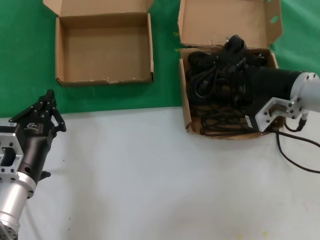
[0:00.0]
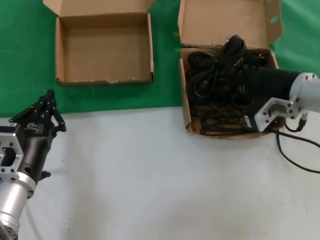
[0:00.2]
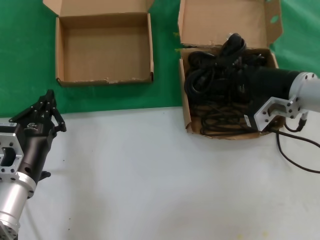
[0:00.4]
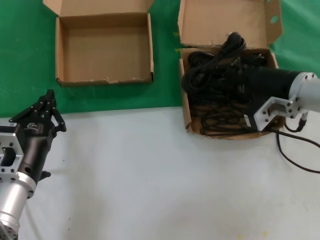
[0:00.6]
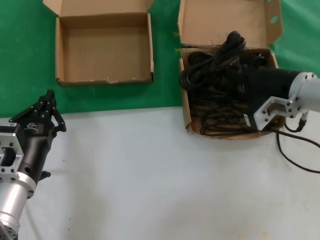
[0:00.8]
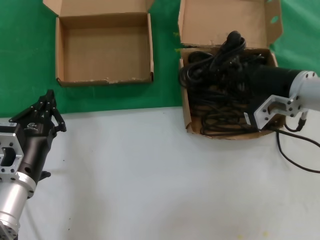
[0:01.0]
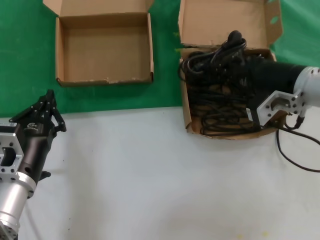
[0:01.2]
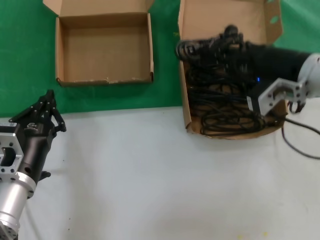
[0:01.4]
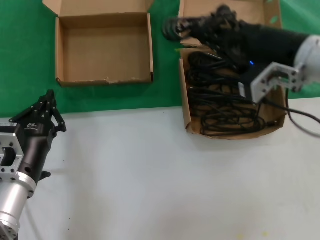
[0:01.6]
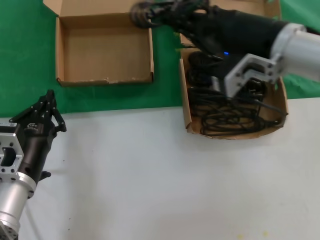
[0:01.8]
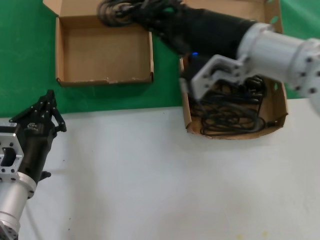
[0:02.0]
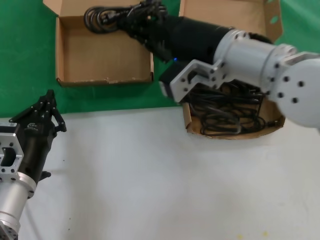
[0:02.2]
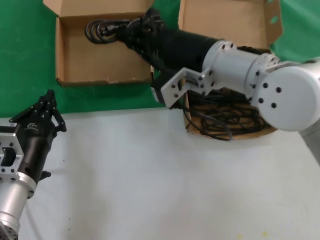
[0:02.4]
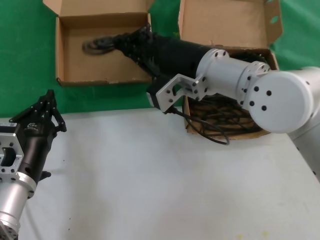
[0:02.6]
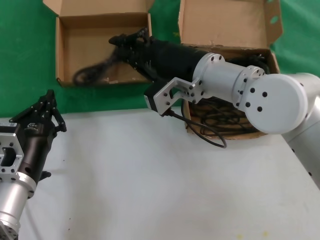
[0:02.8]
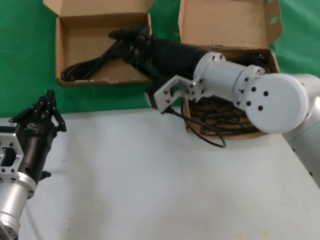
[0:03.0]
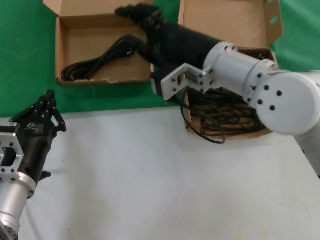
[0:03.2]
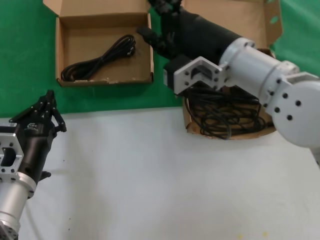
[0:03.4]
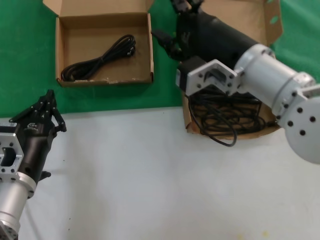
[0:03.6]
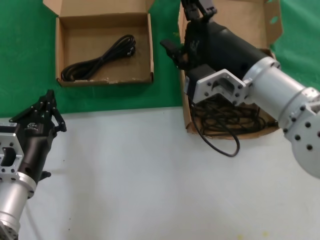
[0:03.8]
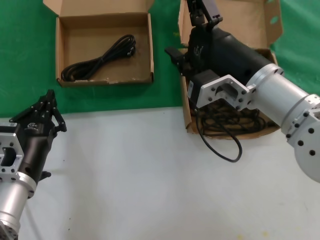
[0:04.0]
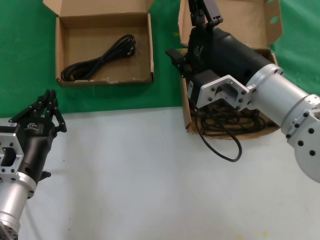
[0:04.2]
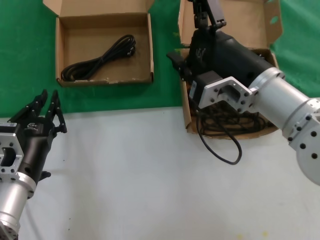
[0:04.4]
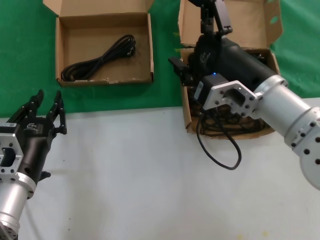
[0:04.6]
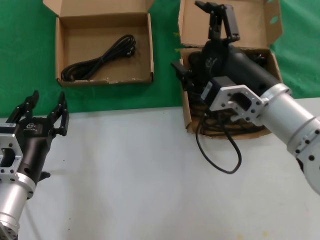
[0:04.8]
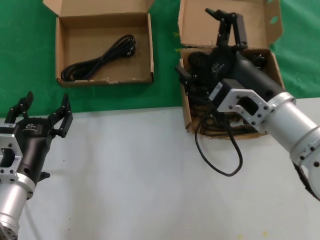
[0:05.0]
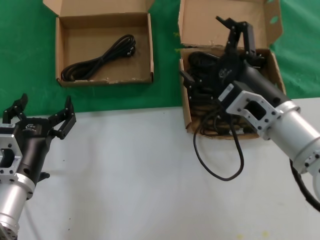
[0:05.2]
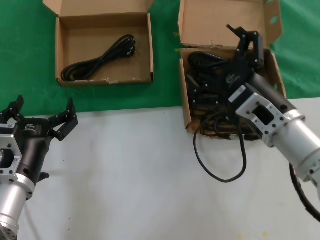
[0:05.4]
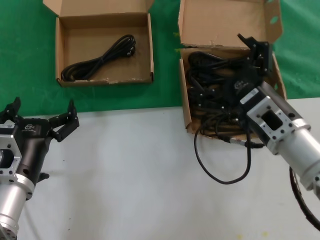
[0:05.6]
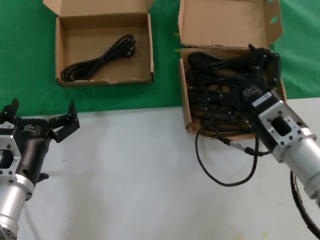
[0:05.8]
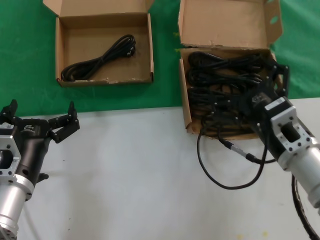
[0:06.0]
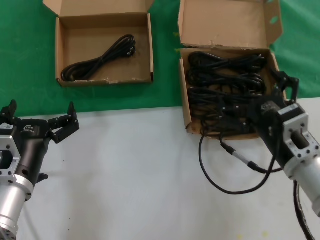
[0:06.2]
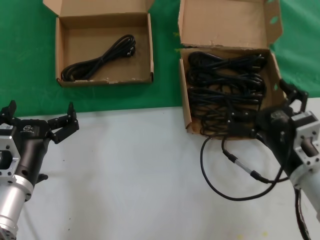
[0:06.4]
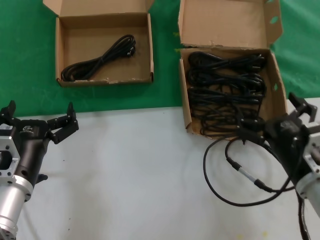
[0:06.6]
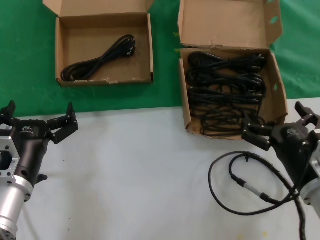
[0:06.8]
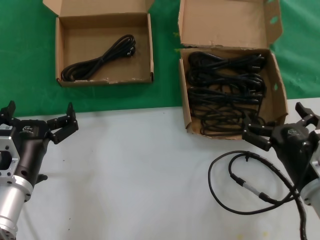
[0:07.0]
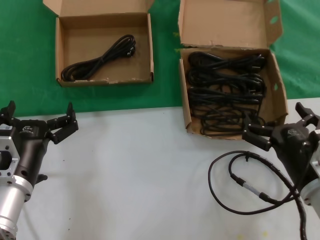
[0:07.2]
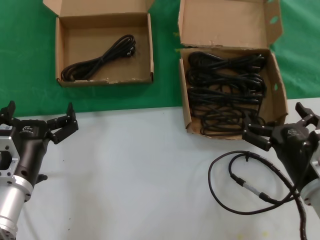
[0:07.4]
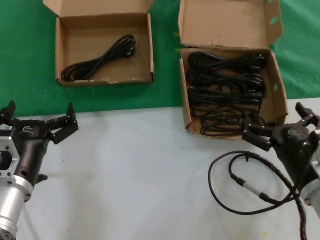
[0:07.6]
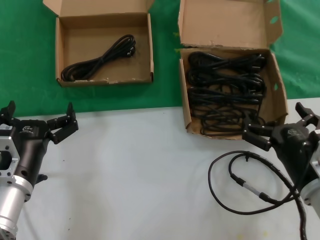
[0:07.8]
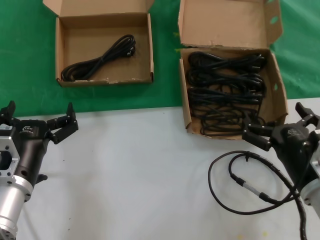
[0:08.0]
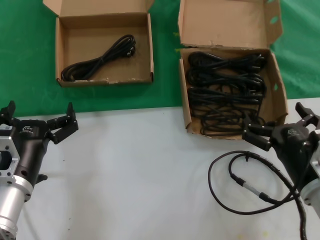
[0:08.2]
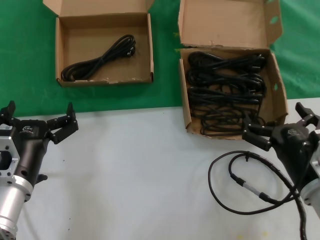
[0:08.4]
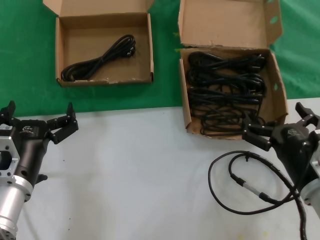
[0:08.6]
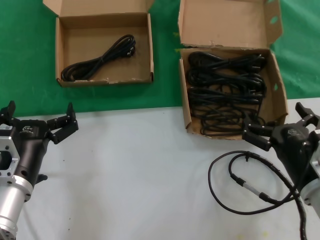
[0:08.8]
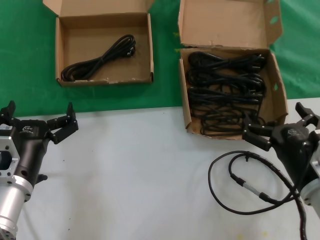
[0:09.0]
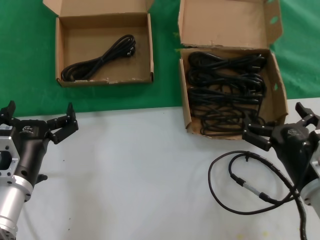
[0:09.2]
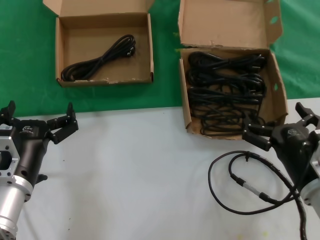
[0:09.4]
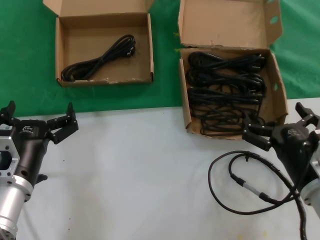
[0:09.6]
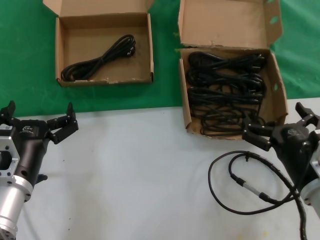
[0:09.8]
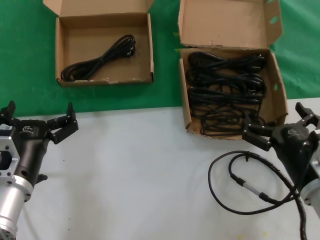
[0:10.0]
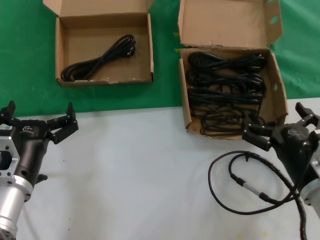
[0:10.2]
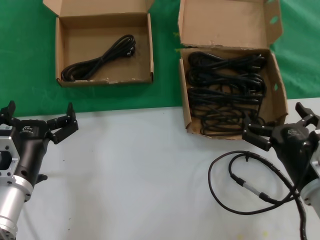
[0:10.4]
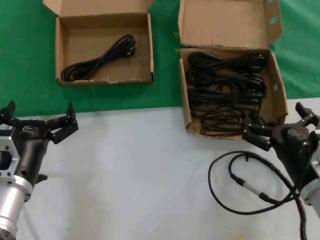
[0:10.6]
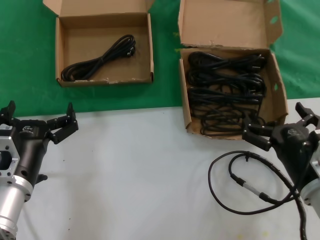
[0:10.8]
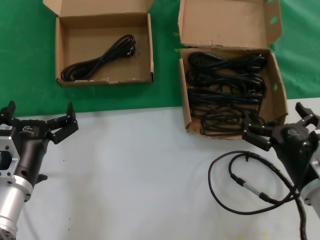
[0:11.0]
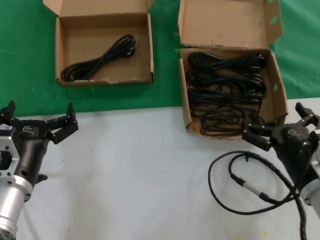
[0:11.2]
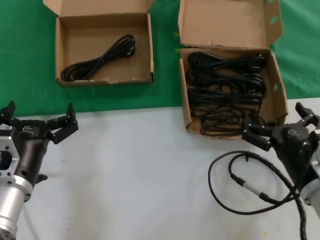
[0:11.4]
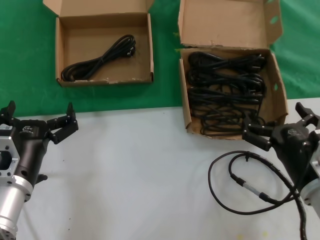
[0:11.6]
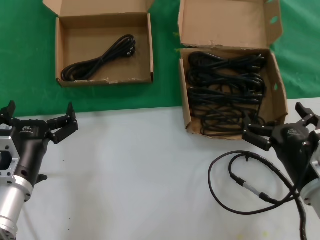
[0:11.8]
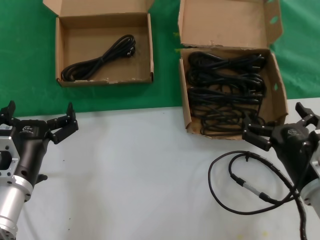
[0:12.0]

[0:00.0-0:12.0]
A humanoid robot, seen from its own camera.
Task of the whole recording: take the parts from the box containing them and put them into an empty box.
Step, 0.8 to 2.8 s: Place the data cable in the another box.
0.0 to 1.6 s: The right hand heads upward, covering some 5 cm.
1.6 to 3.0 s: The right hand is displaced to the left by roughly 15 cm.
3.0 to 4.4 s: The right hand shifts some 10 cm backward and to the right.
4.4 to 6.0 s: The right hand goes approximately 15 cm downward and to the right.
6.0 to 7.6 s: The right hand goes some 5 cm downward.
7.6 to 12.0 s: Neither hand changes place.

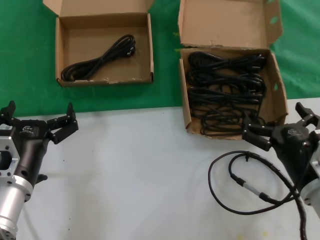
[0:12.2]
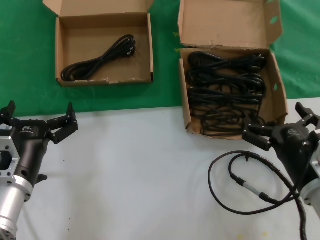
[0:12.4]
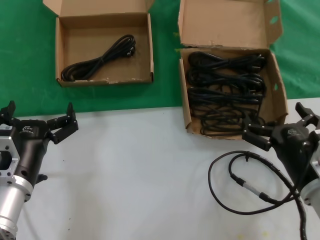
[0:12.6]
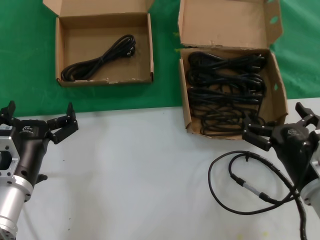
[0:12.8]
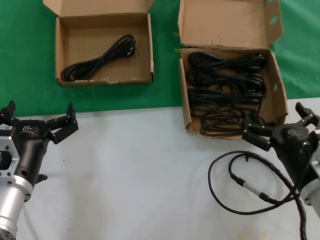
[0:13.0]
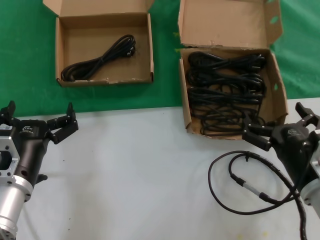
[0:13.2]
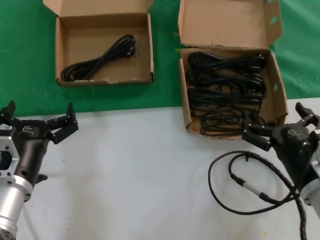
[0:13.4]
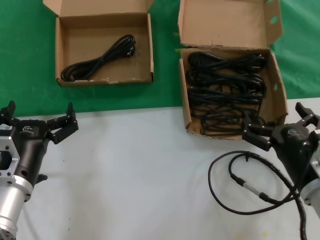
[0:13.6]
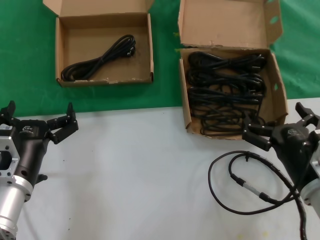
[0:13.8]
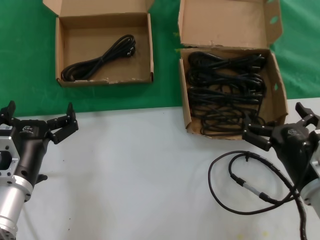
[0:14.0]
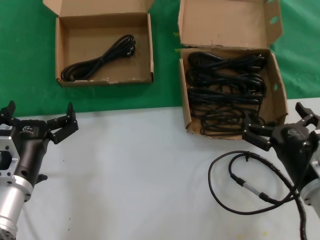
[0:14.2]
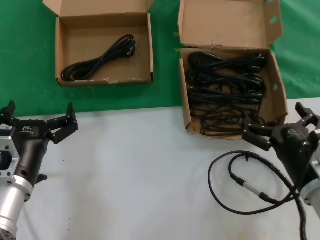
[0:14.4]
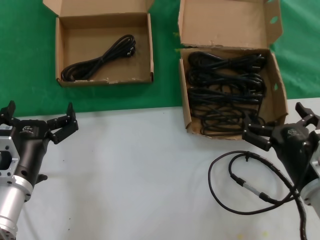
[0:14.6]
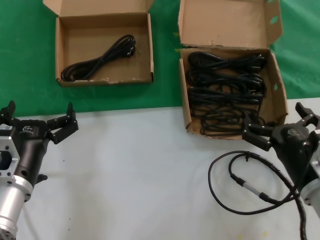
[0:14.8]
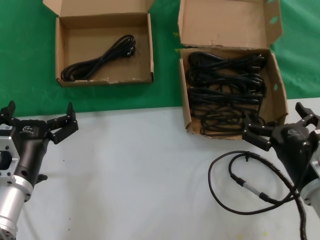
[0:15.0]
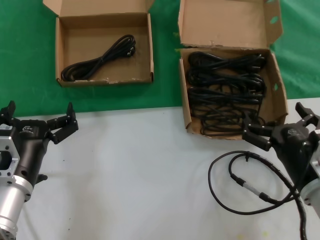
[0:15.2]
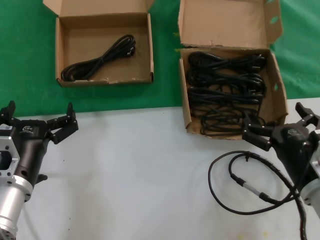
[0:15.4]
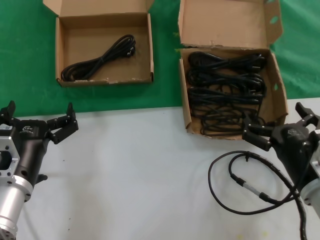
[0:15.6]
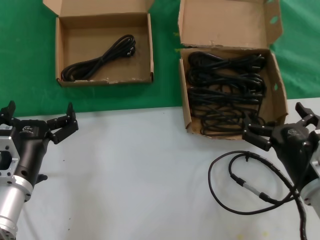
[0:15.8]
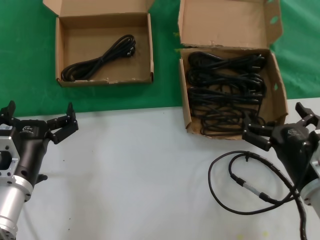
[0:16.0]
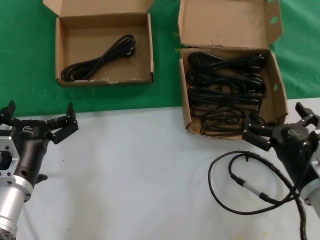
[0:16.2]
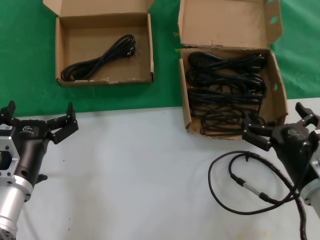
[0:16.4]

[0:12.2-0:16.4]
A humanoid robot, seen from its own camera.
Task of the whole recording: take the parts from the box containing them and put them into an empty box.
12.2 to 16.4 s: Neither hand changes place.

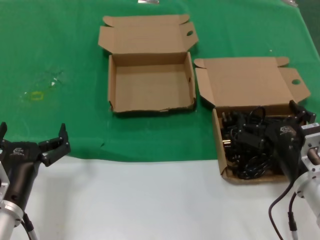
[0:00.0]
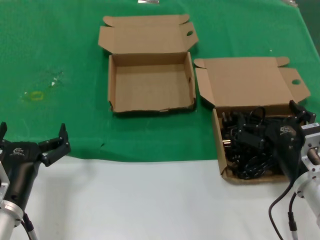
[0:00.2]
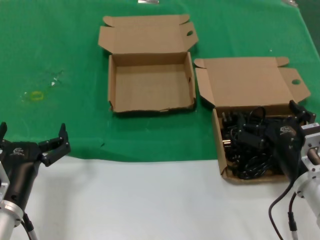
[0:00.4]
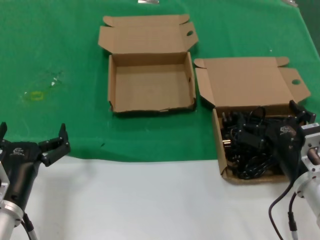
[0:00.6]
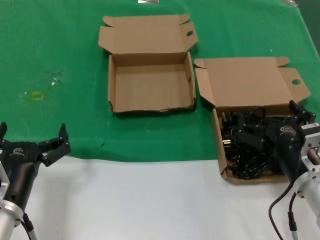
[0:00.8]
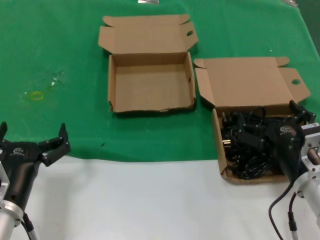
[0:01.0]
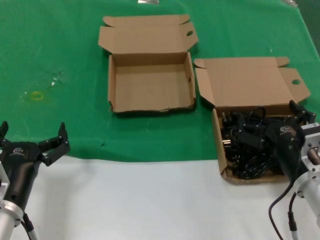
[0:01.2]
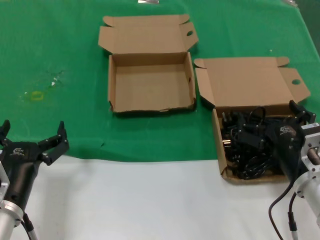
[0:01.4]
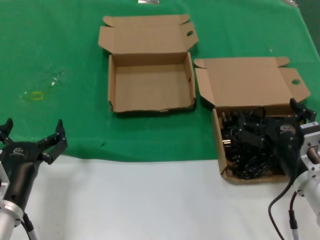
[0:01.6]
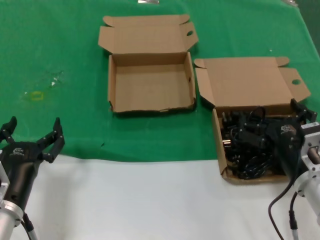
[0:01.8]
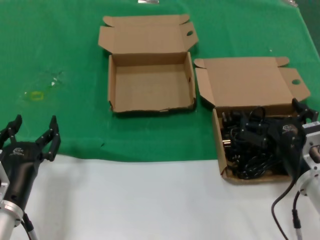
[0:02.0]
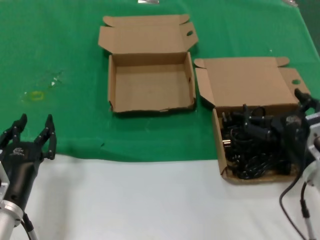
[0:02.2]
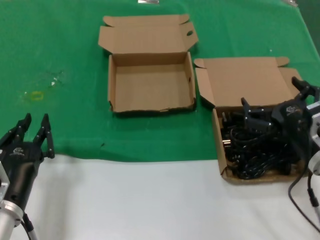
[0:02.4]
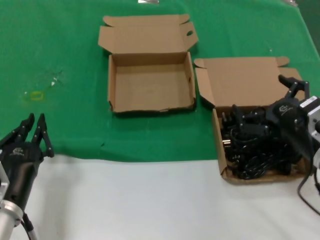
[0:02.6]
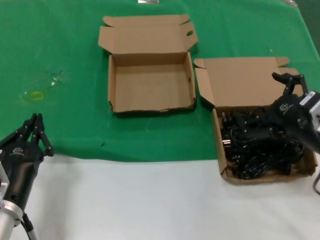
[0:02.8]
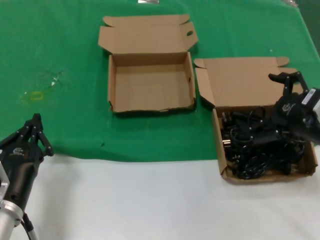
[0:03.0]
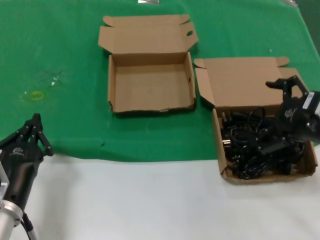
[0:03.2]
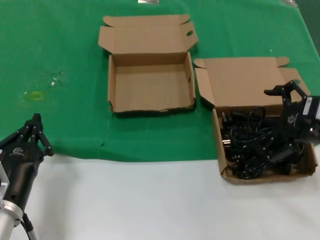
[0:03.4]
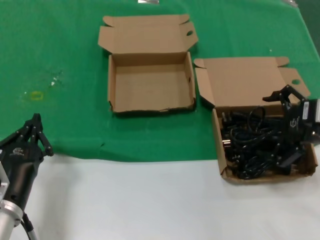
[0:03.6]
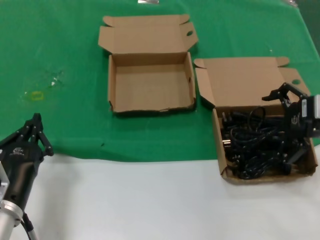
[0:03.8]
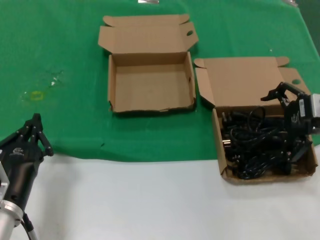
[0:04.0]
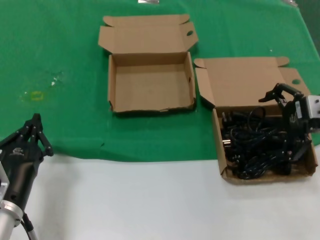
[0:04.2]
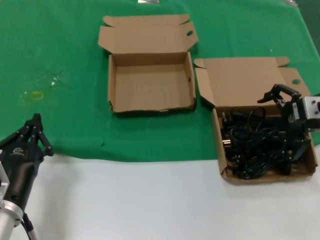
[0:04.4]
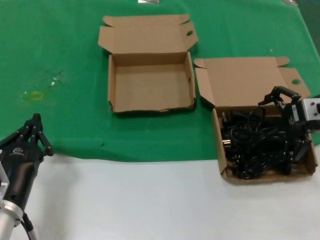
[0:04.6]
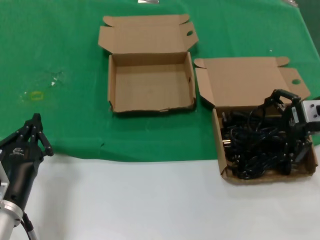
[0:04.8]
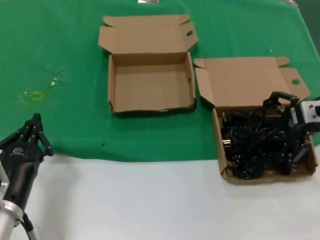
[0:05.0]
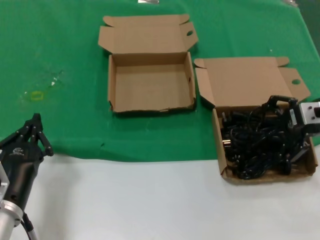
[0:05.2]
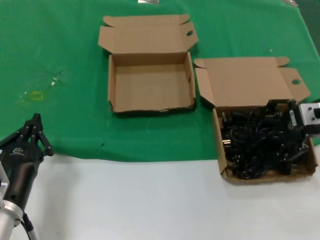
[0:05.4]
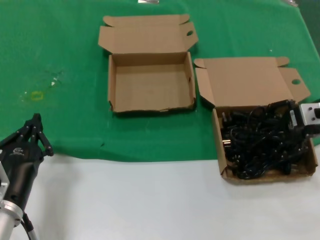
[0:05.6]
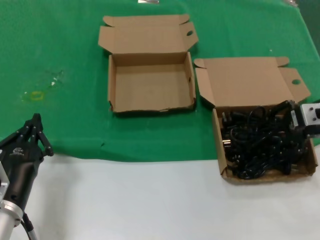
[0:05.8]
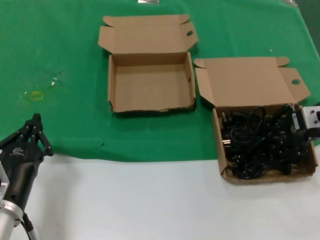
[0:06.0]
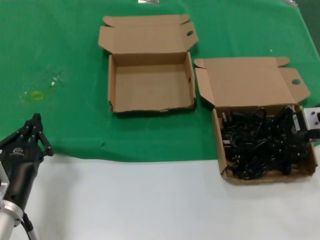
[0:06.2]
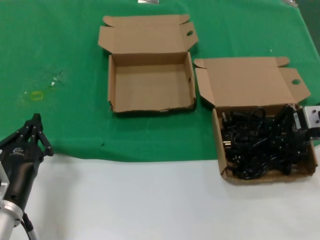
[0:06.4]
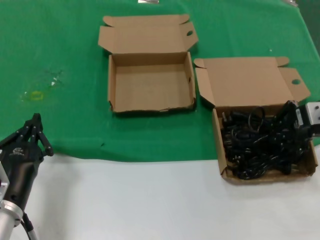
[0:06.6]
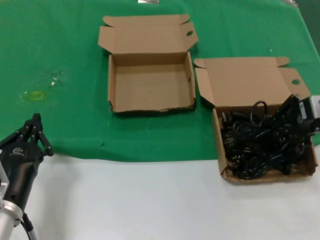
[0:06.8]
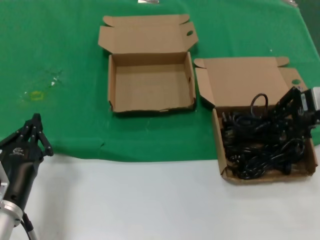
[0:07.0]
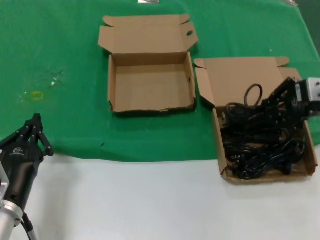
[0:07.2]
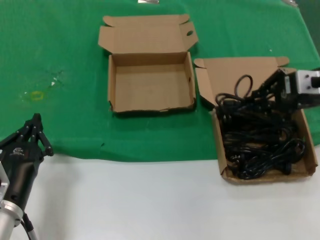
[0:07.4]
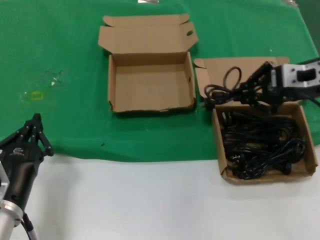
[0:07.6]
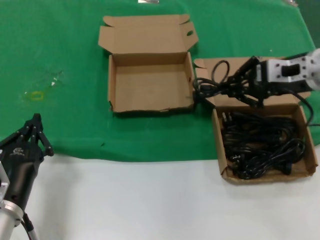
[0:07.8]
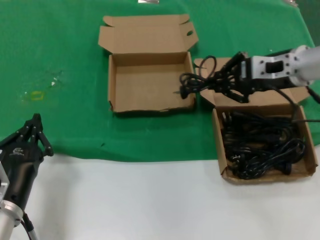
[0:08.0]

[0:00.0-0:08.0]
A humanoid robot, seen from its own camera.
Task of the whole recording: take the parts from the box containing them and put them into an empty box.
Step, 0.0 to 5.8 s: Grasp the data cable.
0.0 to 1.6 s: Both hands stay put.
1.6 to 3.2 s: The right hand heads upward and to the right, covering about 15 cm.
3.2 to 4.8 s: The right hand shifts about 10 cm forward.
4.8 to 6.4 s: The two hands keep their place.
6.4 to 8.0 s: The right hand moves to the left and forward, some 10 cm.
